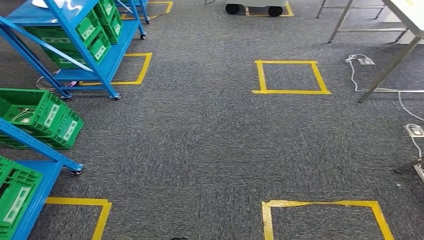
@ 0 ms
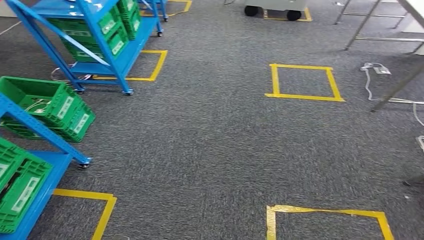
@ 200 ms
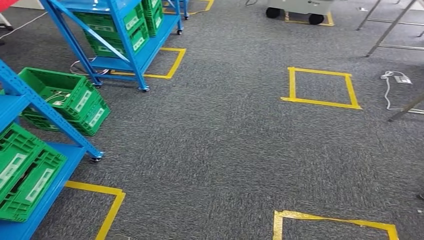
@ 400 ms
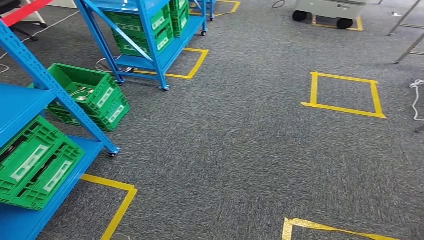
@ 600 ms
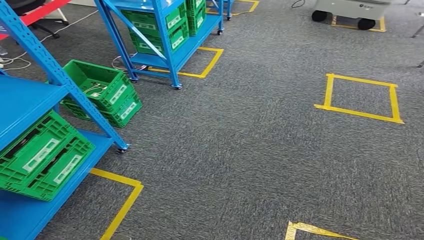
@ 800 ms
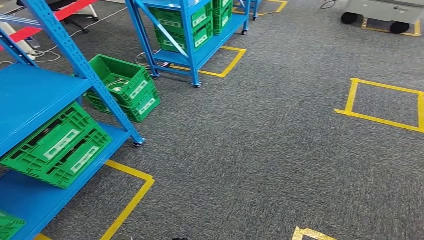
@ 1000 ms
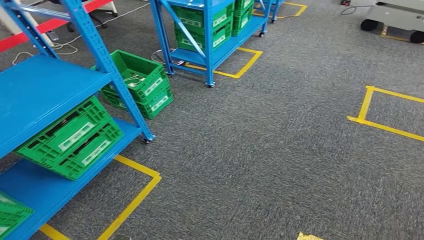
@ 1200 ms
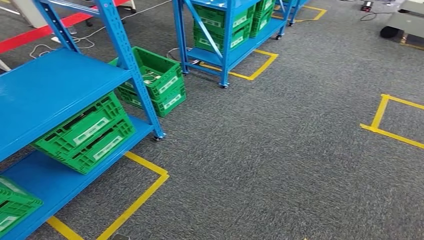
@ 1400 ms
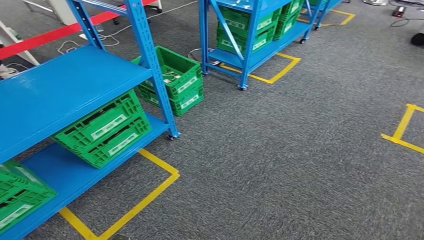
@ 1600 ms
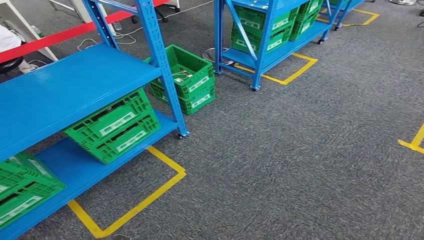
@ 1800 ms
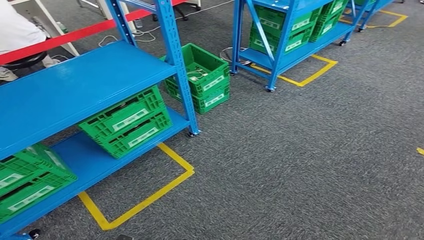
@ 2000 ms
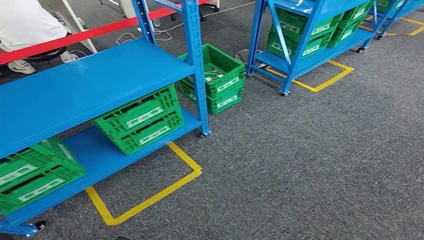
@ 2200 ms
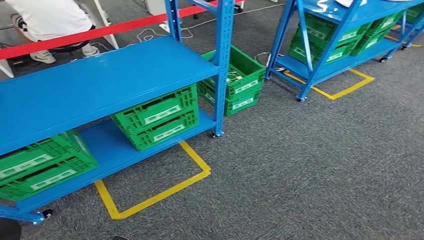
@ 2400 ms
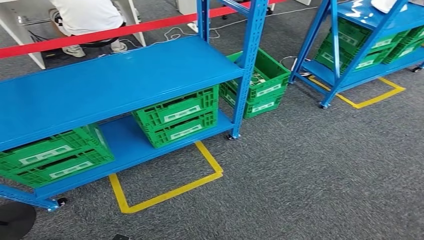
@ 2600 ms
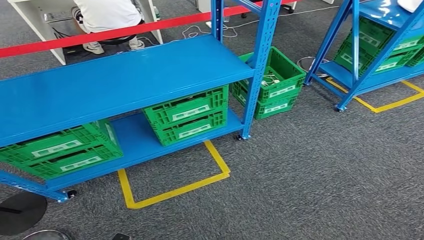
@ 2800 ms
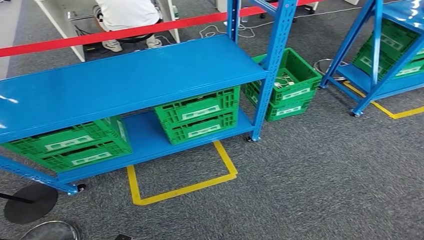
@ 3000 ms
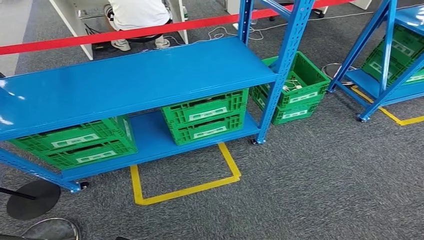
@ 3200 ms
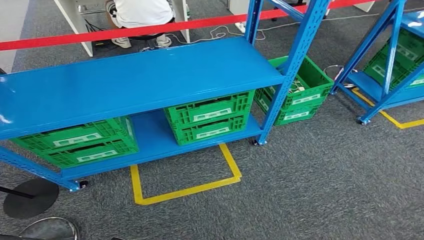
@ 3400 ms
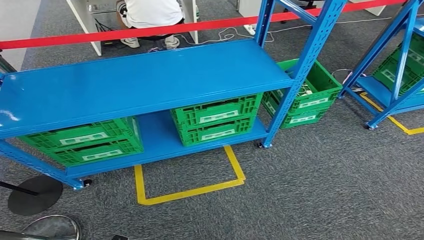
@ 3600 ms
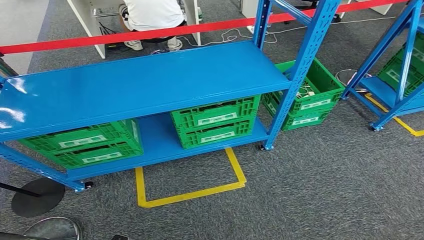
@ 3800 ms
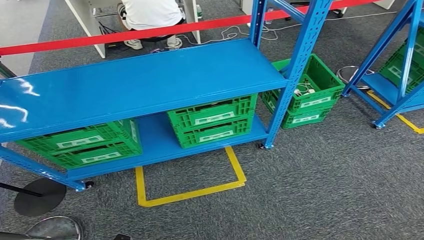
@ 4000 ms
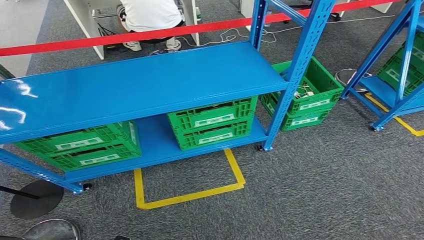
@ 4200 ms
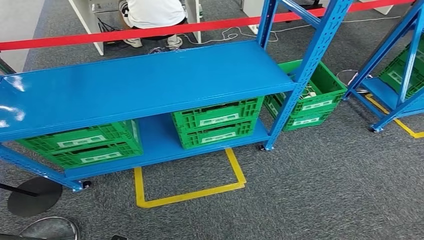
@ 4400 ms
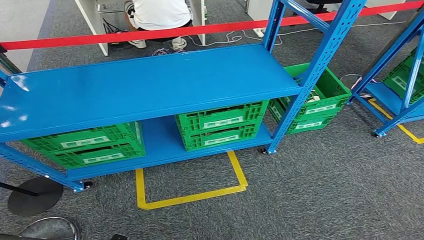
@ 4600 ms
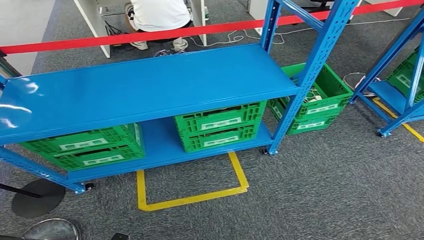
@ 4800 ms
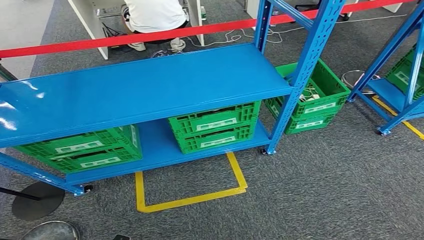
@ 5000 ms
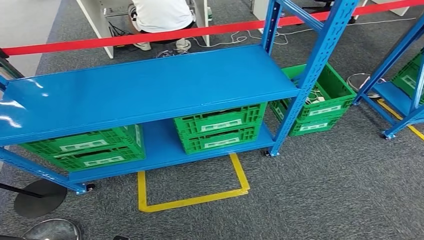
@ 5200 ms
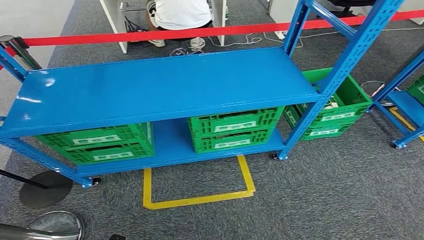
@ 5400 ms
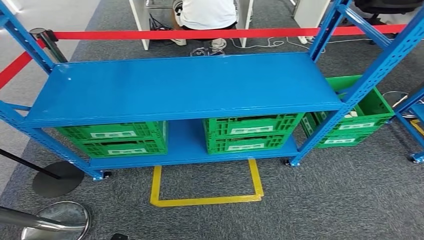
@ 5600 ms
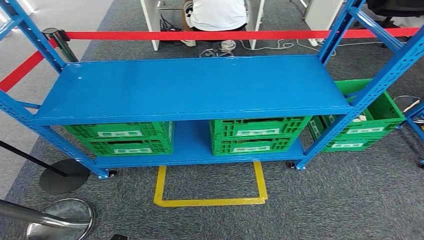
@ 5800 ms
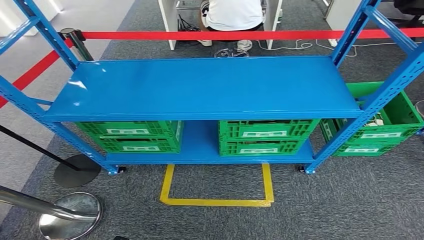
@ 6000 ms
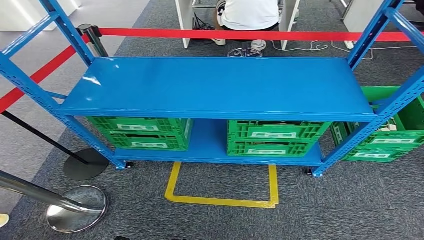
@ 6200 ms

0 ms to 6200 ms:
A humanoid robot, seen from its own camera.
Step, 0 ms to 6200 ms: Move to the initial position at the workbench.
